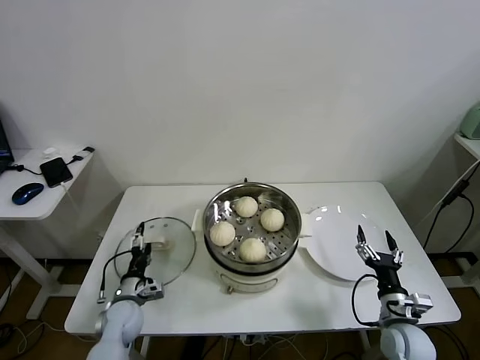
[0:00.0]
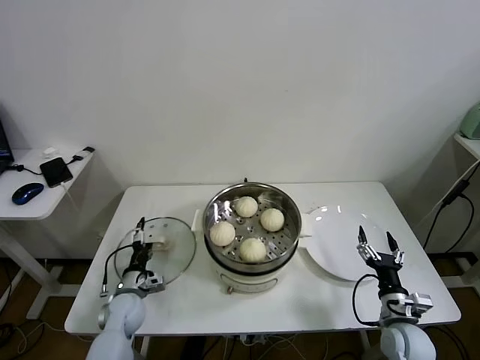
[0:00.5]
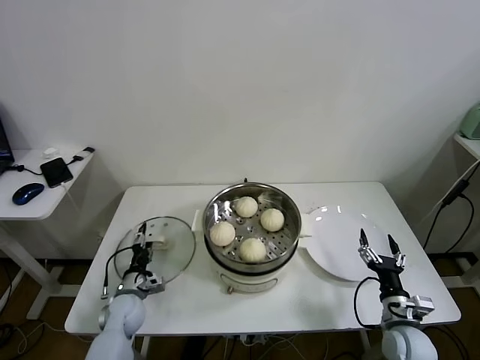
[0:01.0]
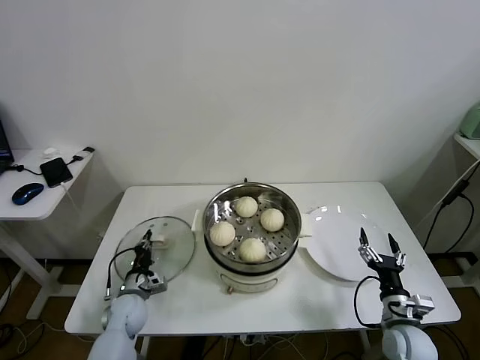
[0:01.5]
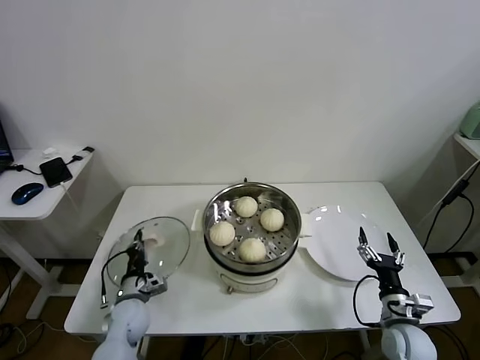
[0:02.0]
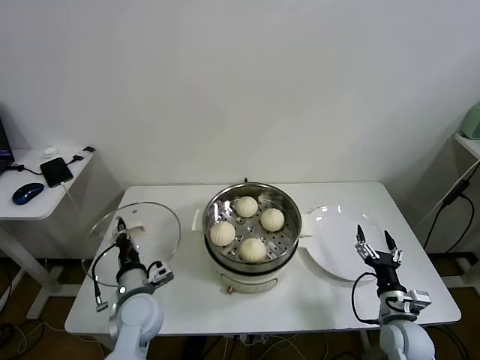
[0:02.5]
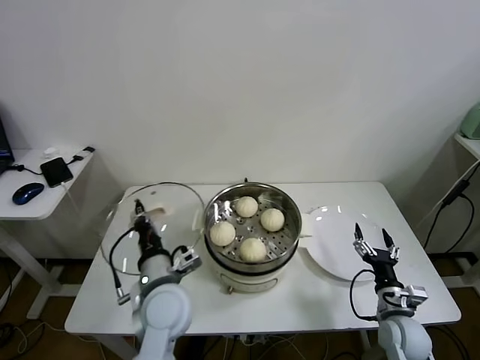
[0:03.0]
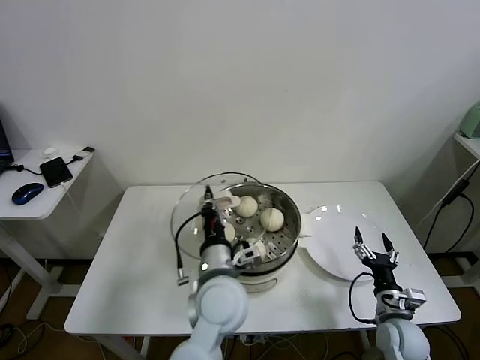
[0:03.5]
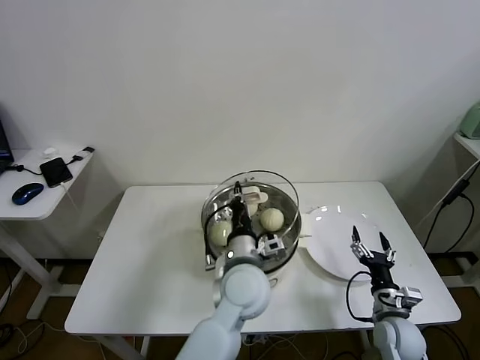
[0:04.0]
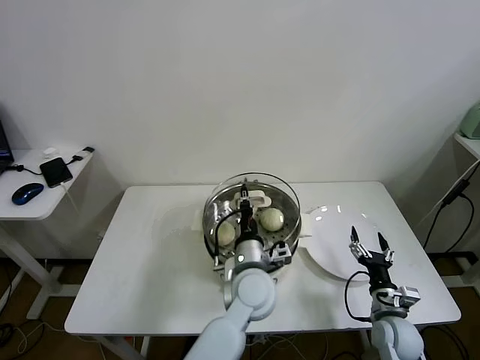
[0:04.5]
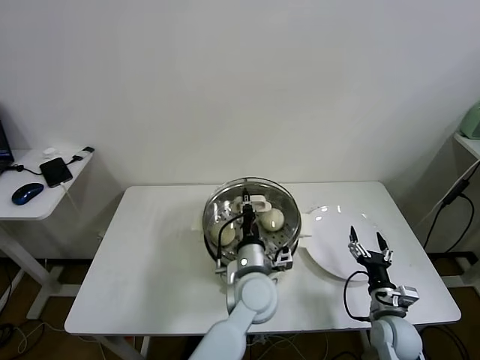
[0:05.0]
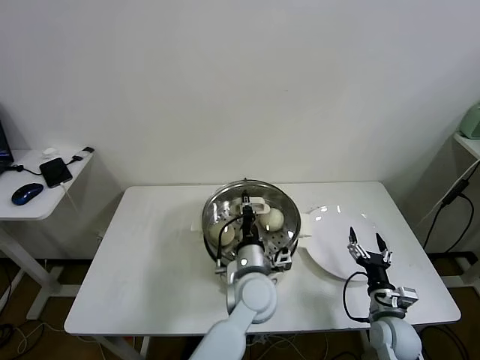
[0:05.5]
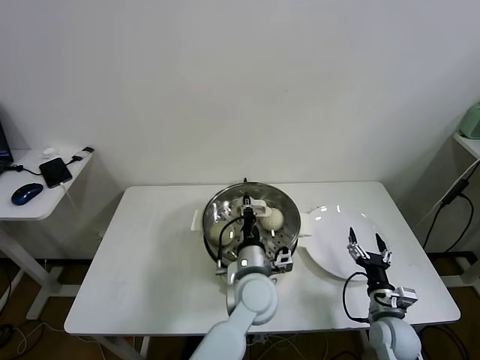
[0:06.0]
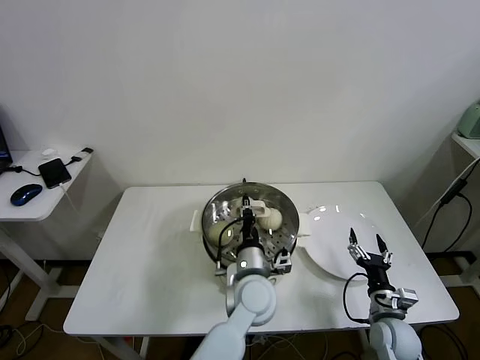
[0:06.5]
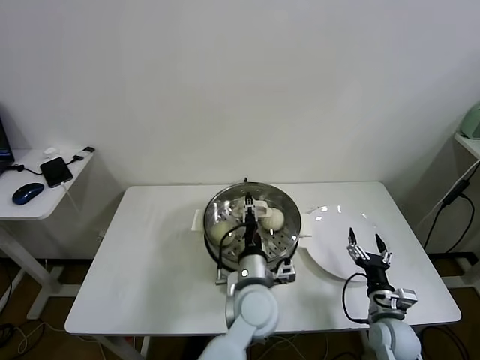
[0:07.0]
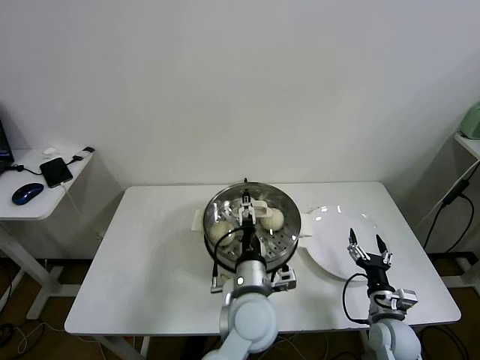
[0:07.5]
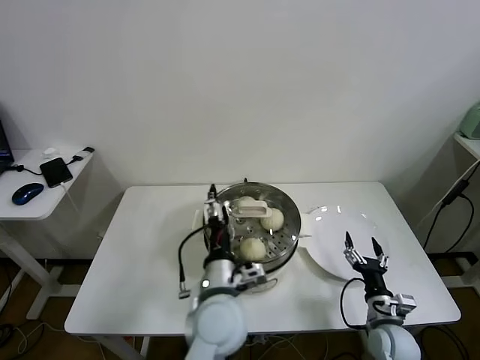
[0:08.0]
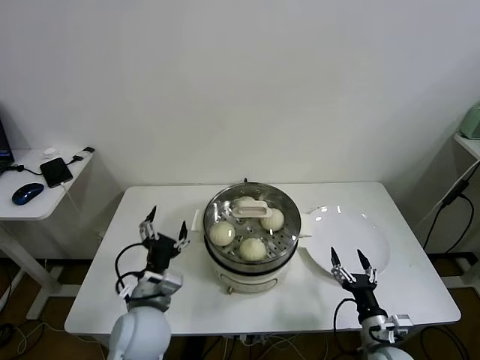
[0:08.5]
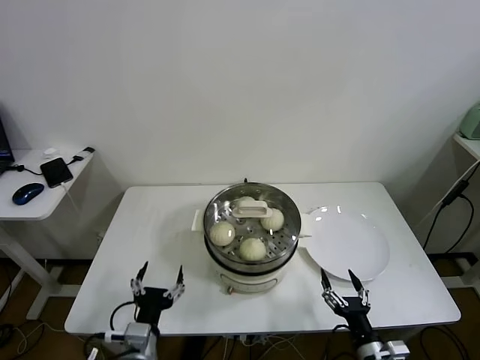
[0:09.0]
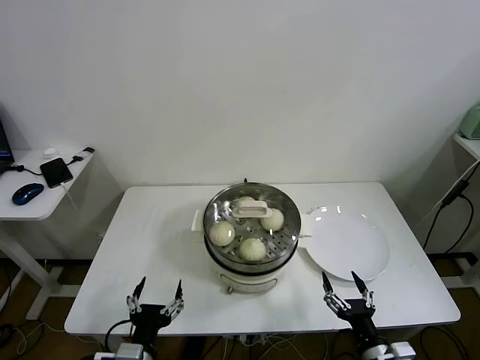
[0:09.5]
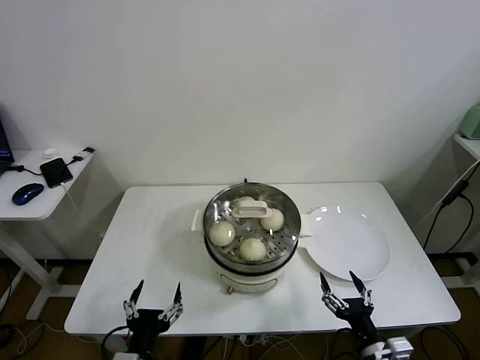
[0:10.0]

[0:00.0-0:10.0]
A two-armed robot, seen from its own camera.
Task of the whole recording: take steamed baozi put them in steamer.
Step, 0:02.0 to 0:06.5: Place the pot lid on the steamer with left gripper.
0:00.0 to 0:02.0: The left gripper closes its fingers.
0:02.0 to 0:04.0: The left gripper travels to the right and upward by about 35 cm.
0:04.0 to 0:06.0: The left gripper goes about 5 cm downward.
0:06.0 to 0:08.0: The left gripper goes about 5 cm backward, and opens up.
0:08.0 to 0:10.0: The left gripper travels to the left and backward by some 25 cm, while the right gripper moves backward and upward, approximately 15 cm.
